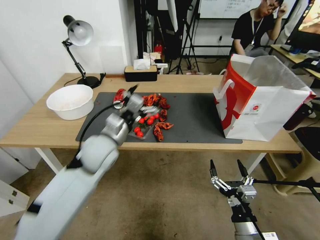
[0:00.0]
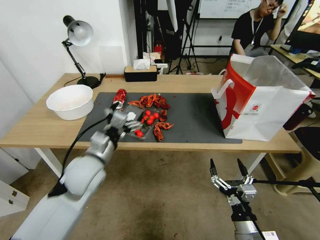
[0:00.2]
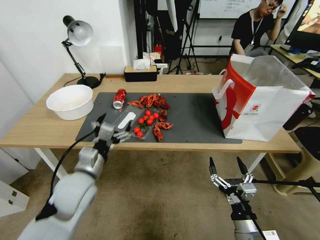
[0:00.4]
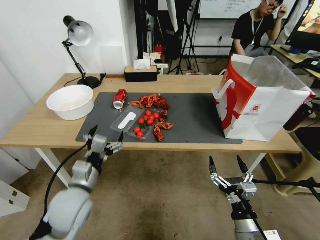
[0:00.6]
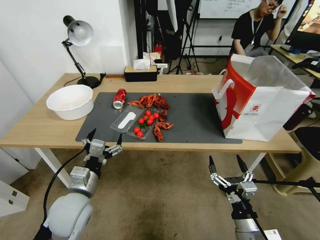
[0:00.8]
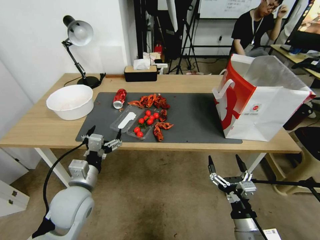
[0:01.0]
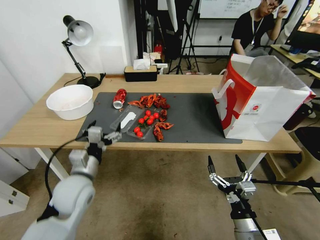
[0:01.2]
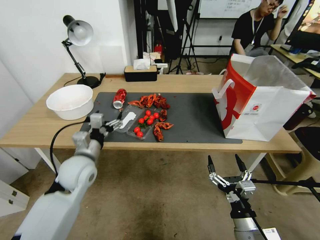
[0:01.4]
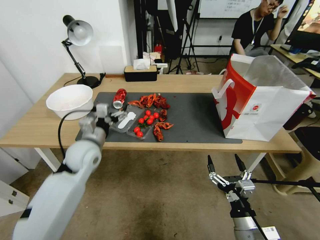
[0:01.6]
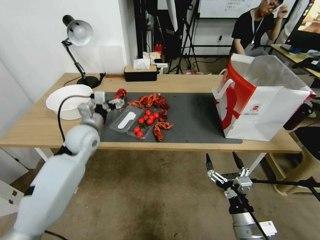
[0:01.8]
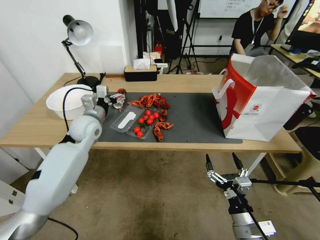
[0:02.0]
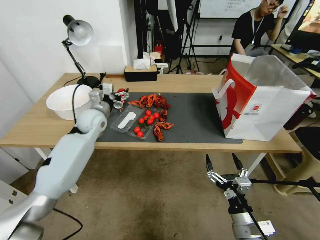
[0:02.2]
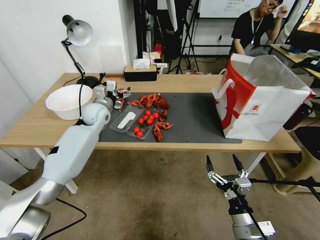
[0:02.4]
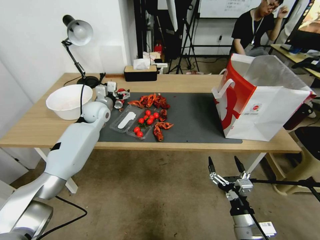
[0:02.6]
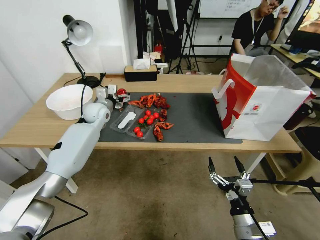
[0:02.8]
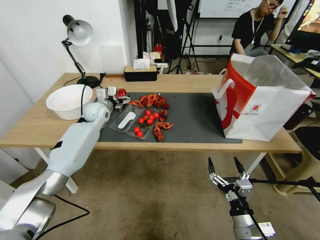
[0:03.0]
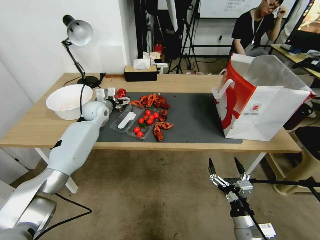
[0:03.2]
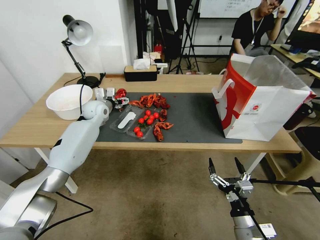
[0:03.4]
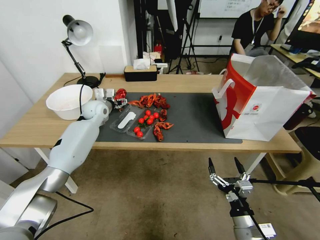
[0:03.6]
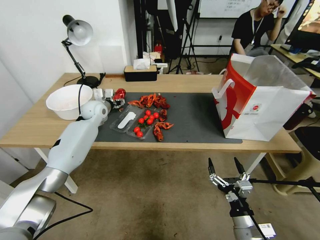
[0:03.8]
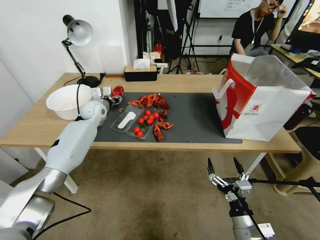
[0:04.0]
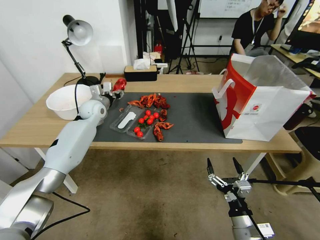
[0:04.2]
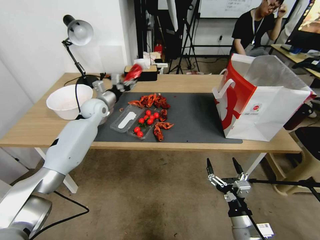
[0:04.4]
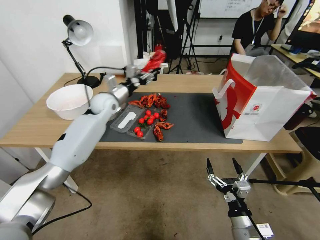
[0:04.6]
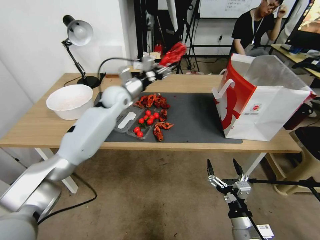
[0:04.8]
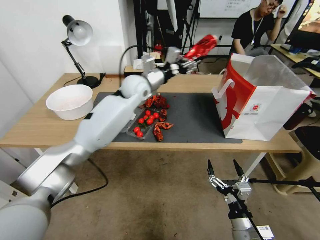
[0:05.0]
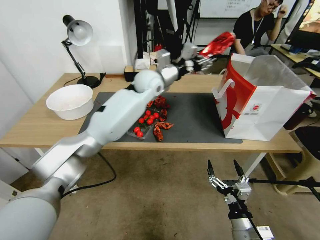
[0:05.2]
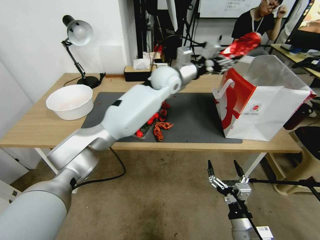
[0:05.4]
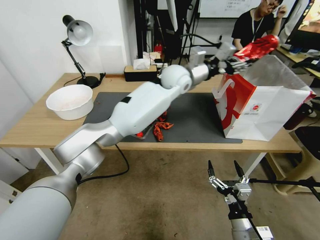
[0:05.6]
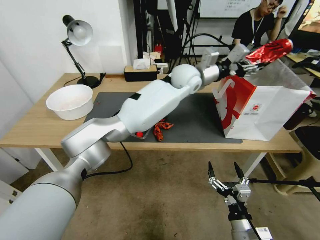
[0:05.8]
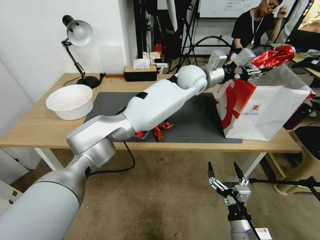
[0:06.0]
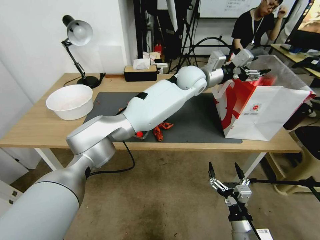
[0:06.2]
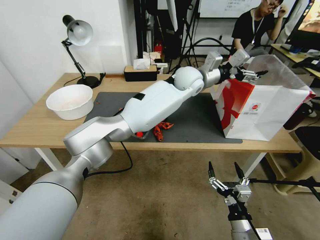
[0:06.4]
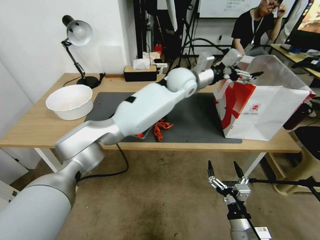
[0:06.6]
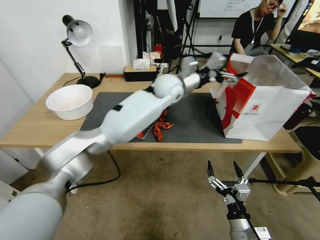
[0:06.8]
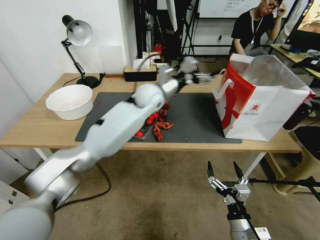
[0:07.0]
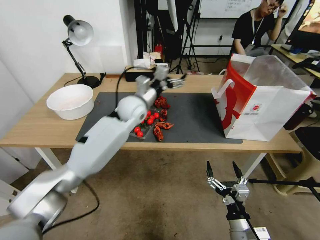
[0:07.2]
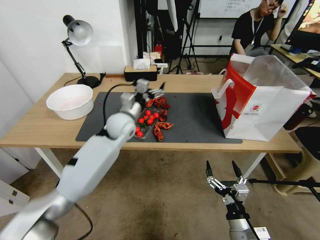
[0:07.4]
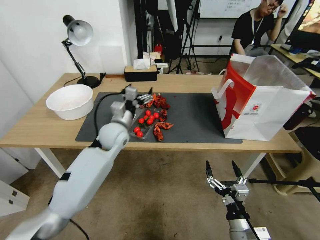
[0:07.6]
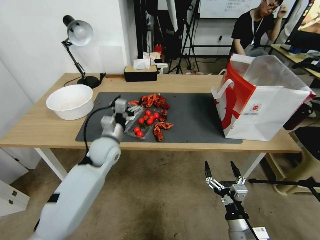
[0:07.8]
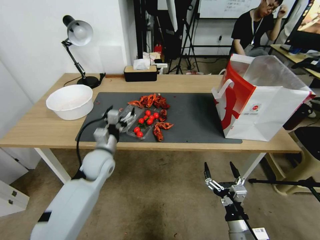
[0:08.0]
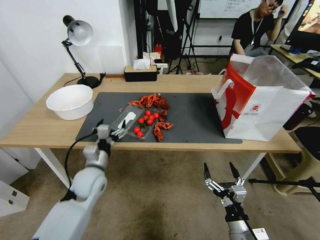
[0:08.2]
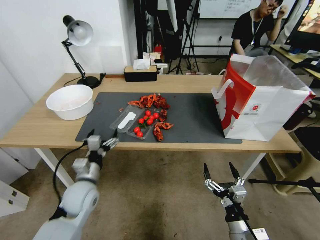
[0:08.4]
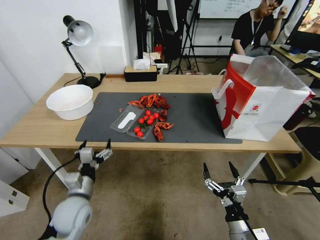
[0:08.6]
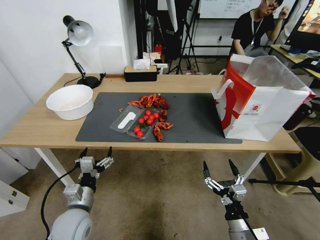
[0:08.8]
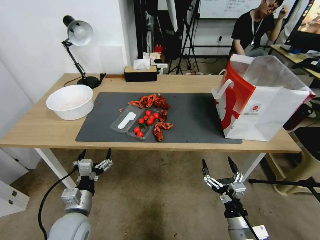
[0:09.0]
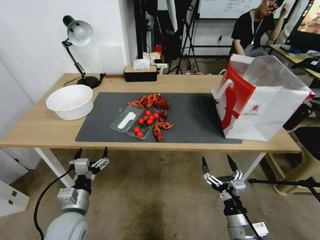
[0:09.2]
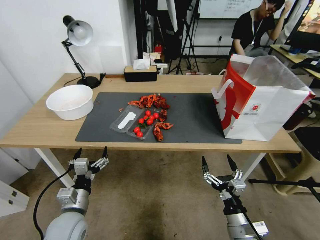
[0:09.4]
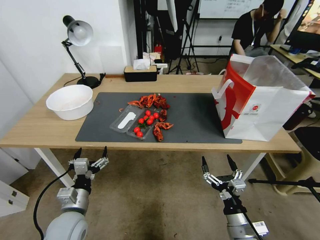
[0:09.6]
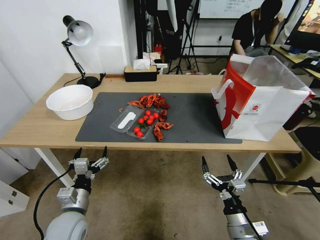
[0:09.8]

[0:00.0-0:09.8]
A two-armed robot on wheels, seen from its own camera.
0:00.0 to 0:01.4: The left gripper shifts about 10 cm to the left and downward, and moves some 15 cm backward and comes back.
0:01.4 to 0:02.8: The left gripper goes about 25 cm forward.
0:02.8 to 0:04.2: The left gripper closes.
0:04.2 to 0:05.6: The left gripper moves to the right and upward, some 35 cm.
0:05.6 to 0:07.0: The left gripper is displaced to the left and downward by approximately 10 cm, and opens its fingers.
0:07.0 to 0:08.4: The left gripper travels backward, to the left and downward by approximately 35 cm.
0:08.4 to 0:09.8: The left gripper moves backward, some 10 cm.
